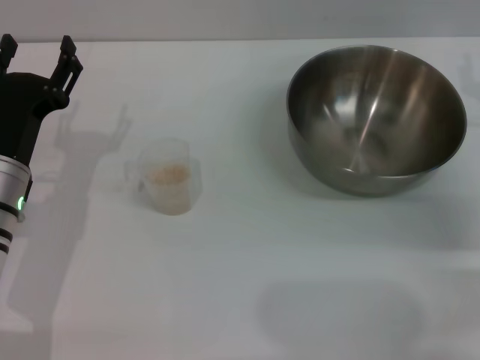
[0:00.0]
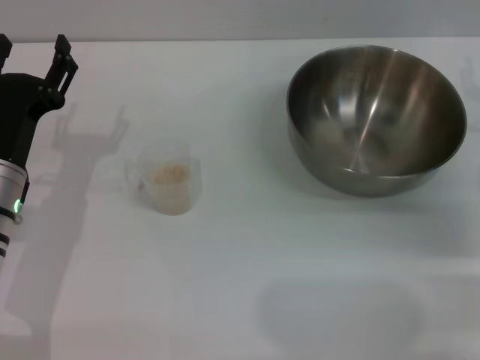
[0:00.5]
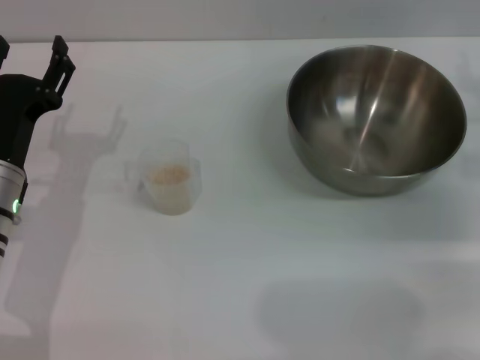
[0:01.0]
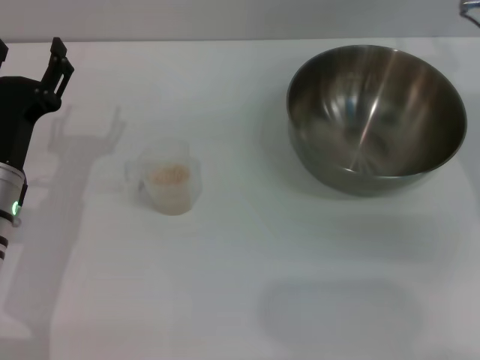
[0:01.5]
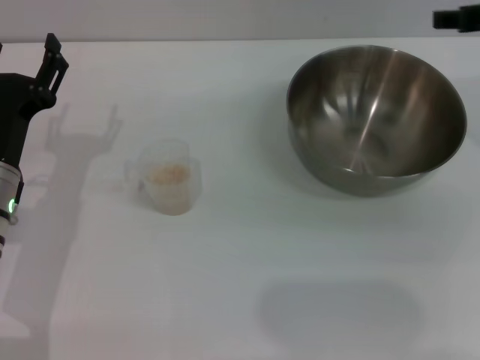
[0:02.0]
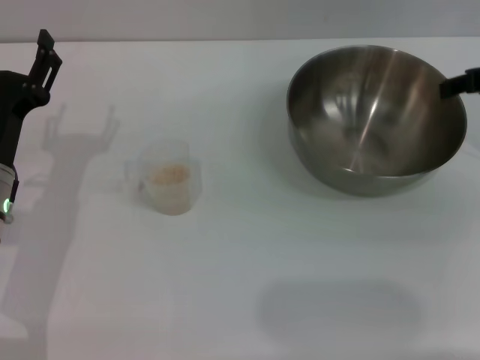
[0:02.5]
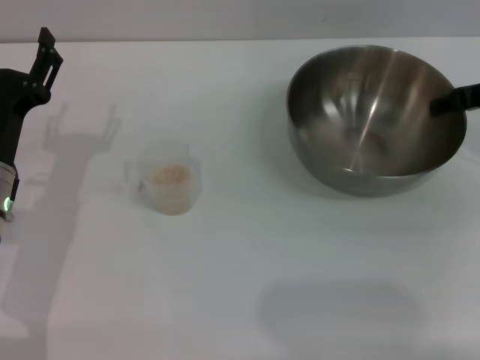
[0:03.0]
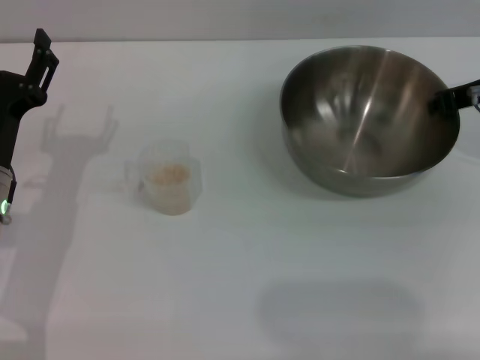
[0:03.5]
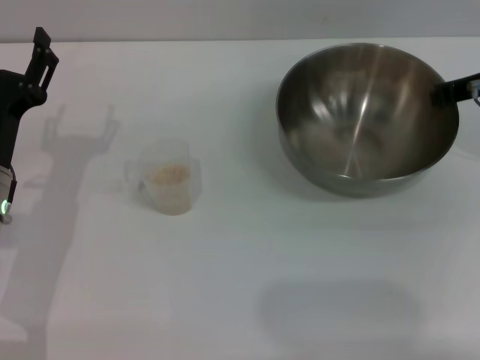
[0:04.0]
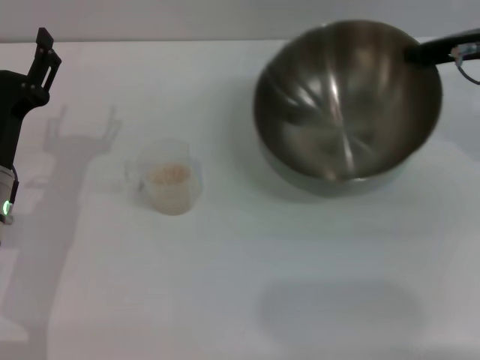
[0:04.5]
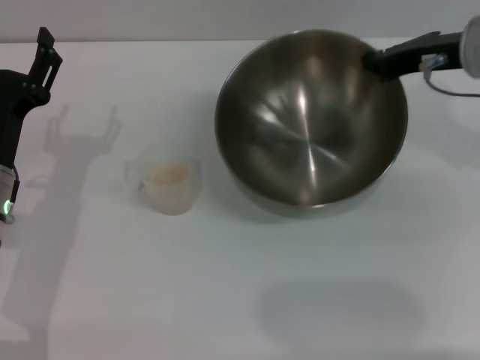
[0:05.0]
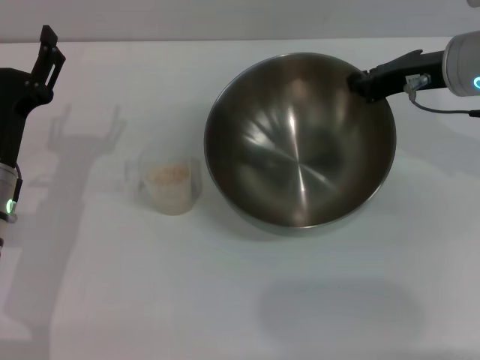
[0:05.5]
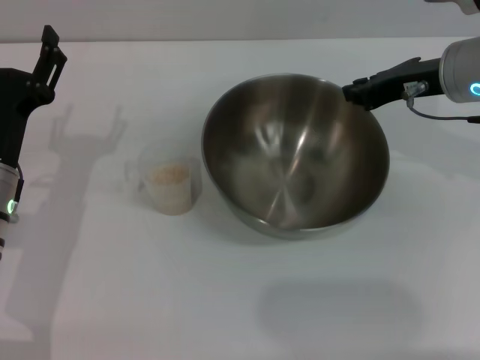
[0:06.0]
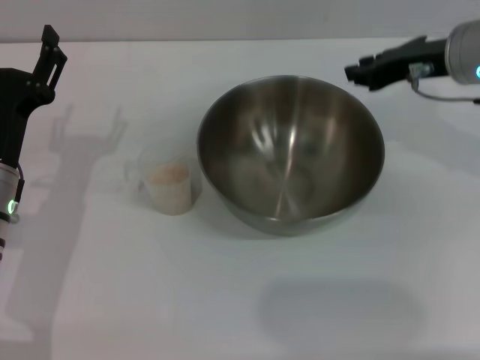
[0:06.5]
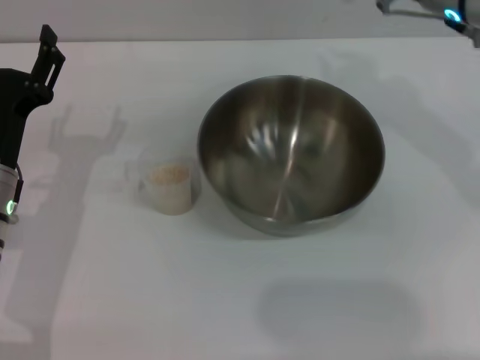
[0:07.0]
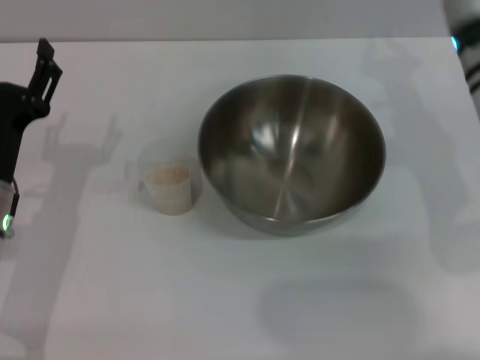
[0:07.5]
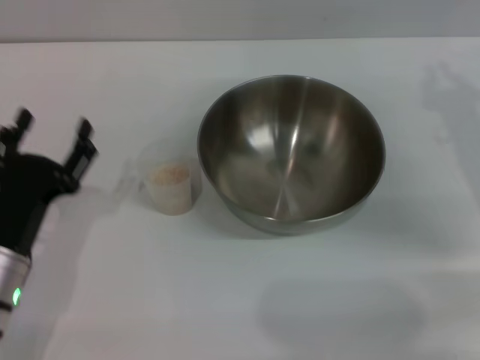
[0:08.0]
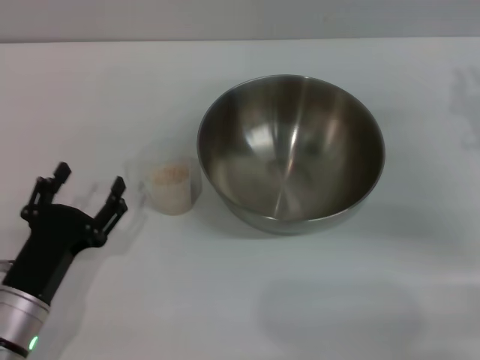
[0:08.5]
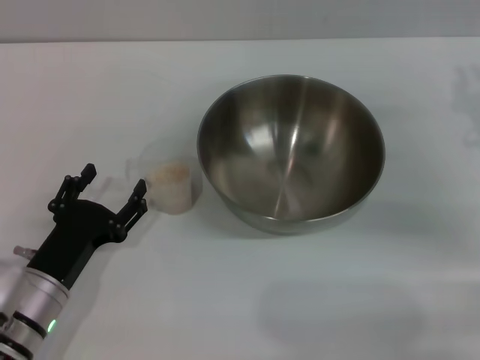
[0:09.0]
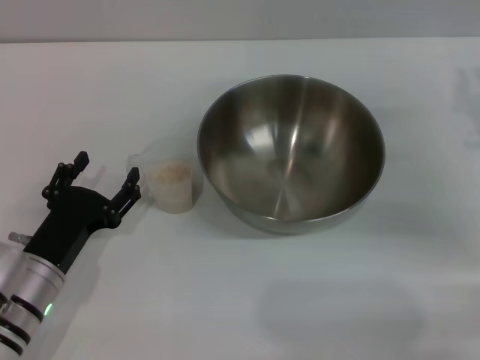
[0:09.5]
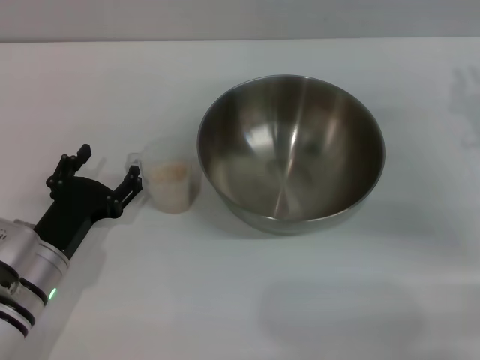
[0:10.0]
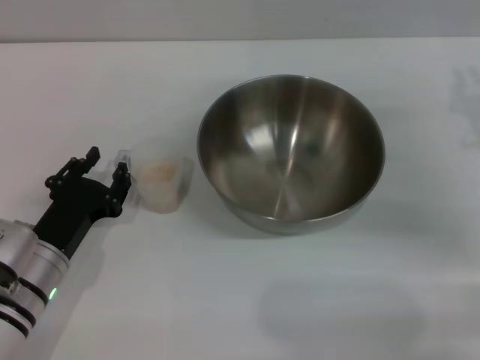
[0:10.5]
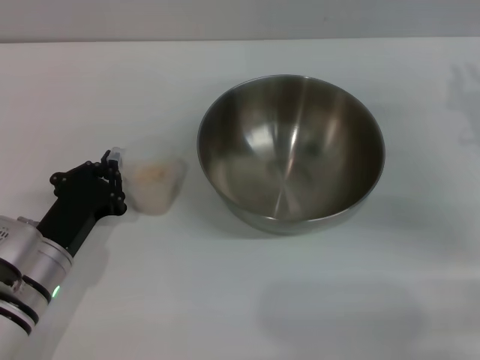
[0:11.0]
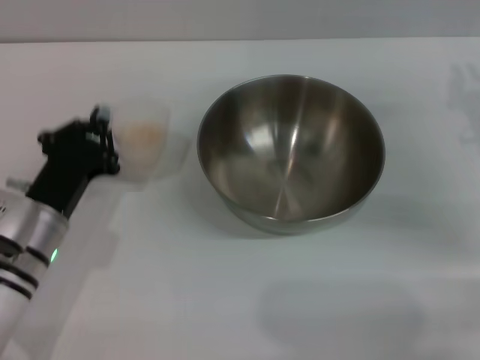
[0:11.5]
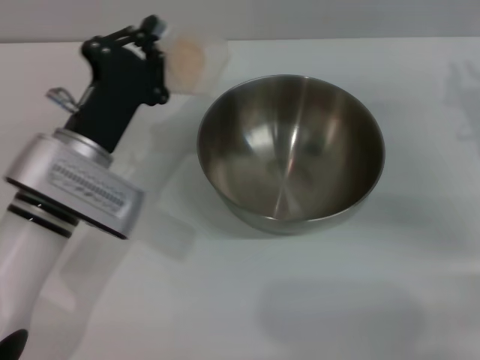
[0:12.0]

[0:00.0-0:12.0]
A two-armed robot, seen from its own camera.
Task of the whole recording: Place the bowl in the middle of the table with one hand and pour the rice from the grain cup into it with the other hand.
Step, 0:00.0 to 0:04.5: Pick up the bowl with the right gripper.
Step, 0:05.0 to 0:06.5: Place the bowl in the center of view with the right gripper.
Step, 0:07.0 to 0:11.0: Pick up the cup with rice in it with the left gripper.
0:00.0 to 0:02.0: The right gripper heads upward, covering some 10 cm.
0:02.0 to 0:04.0: The right gripper moves downward, some 5 cm, and closes its fingers.
0:04.0 to 0:06.0: The right gripper heads to the left, covering roughly 5 cm.
0:06.0 to 0:08.0: The left gripper moves backward, about 5 cm, while the right gripper goes some 10 cm downward and to the right.
0:08.0 to 0:10.0: The grippers stay close to where they were, moving slightly.
0:10.0 to 0:12.0: The left gripper is displaced upward, forward and to the right by about 10 cm, and closes its fingers.

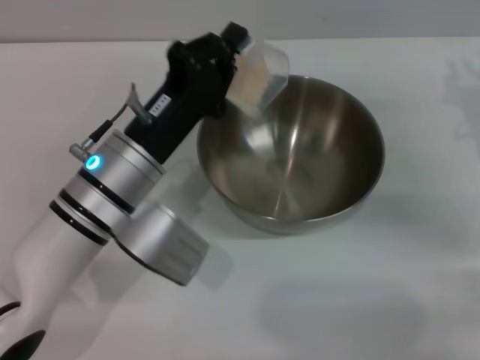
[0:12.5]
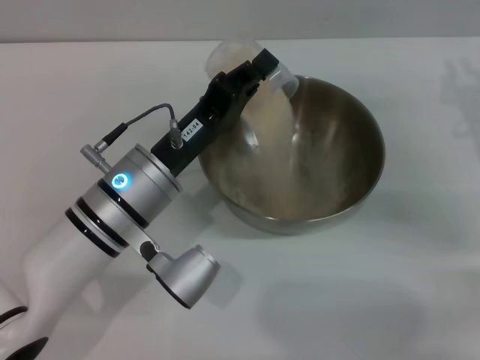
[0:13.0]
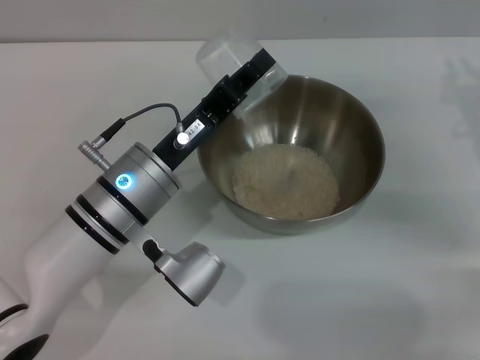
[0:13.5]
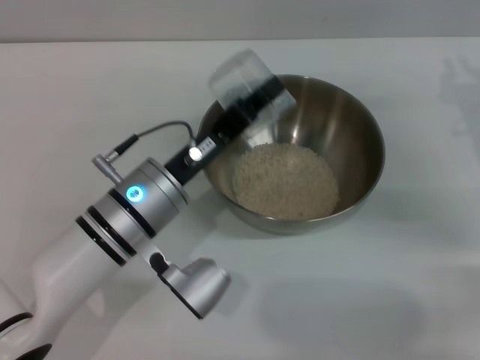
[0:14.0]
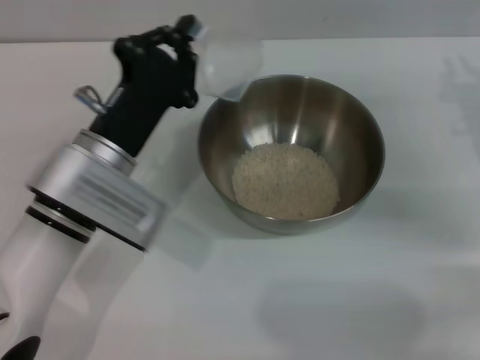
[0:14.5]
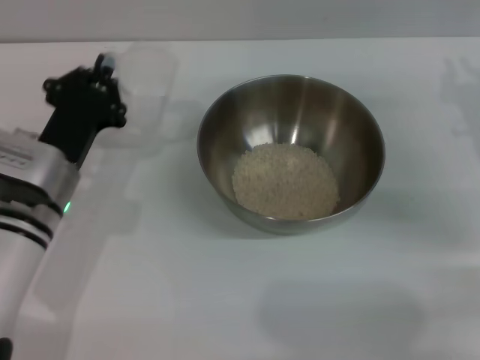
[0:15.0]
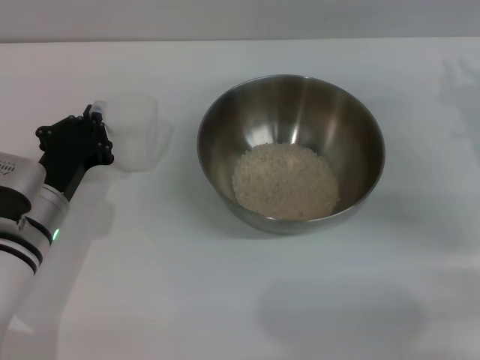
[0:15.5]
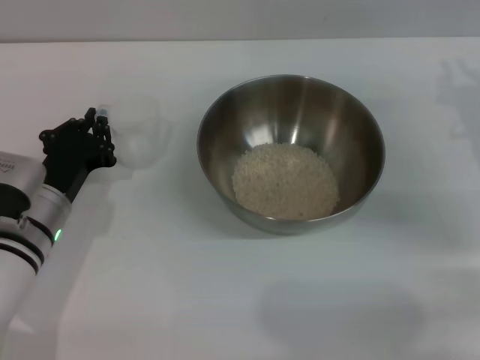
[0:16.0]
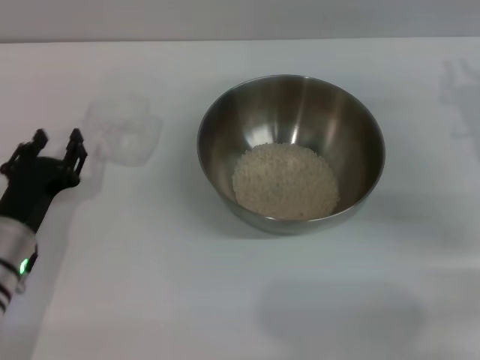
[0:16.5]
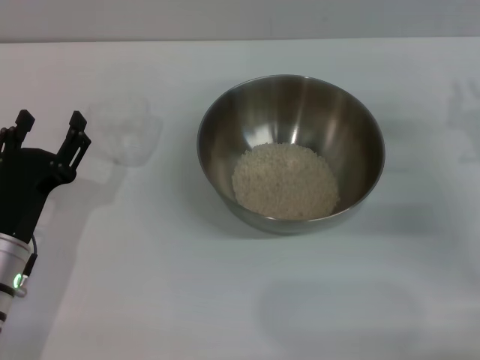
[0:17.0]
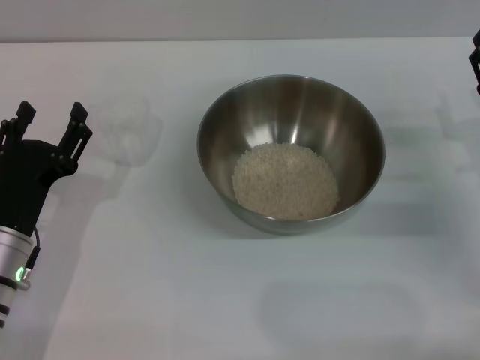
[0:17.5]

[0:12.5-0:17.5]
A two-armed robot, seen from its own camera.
Task of the whole recording: Place the bowl in the middle of the table with one hand and pour the rice from the grain cup into it with the other hand.
Step, 0:12.5 to 0:14.0: Pour the rice from the cup into the bowl with the left gripper.
Step, 0:14.5 to 0:16.5: Place the cup on the table with the left gripper.
0:12.5 to 0:15.0: The left gripper moves to the left, some 10 cm.
0:15.0 to 0:17.5: The right gripper travels downward by approximately 5 cm. The left gripper travels backward by approximately 5 cm, and opens.
